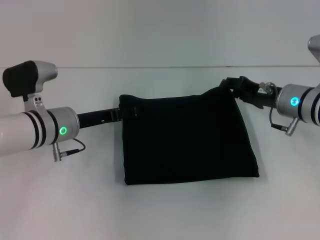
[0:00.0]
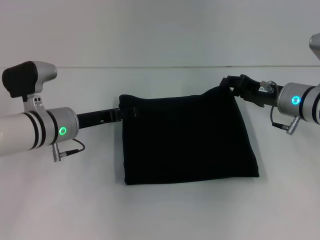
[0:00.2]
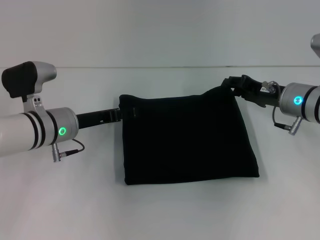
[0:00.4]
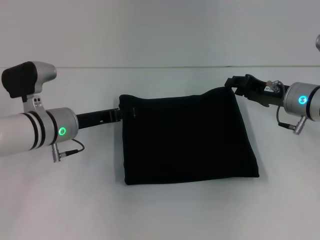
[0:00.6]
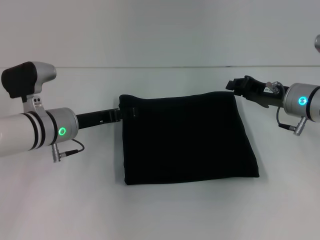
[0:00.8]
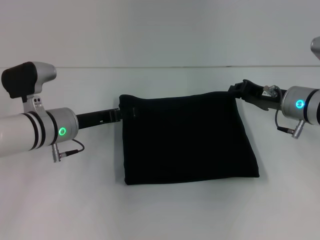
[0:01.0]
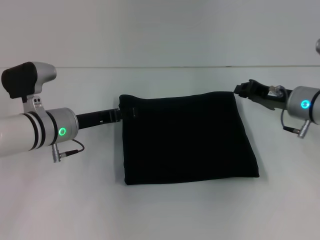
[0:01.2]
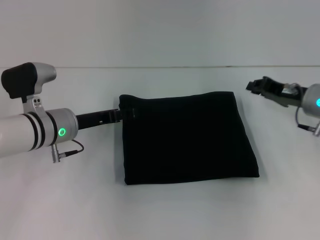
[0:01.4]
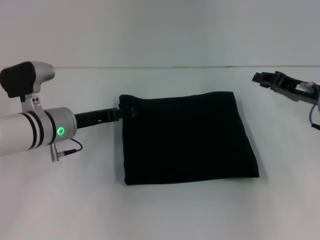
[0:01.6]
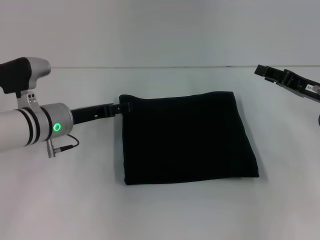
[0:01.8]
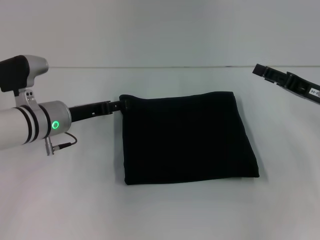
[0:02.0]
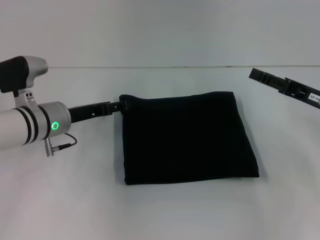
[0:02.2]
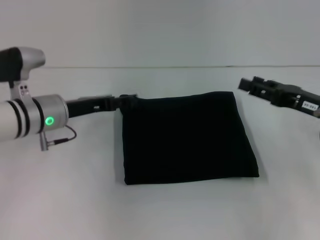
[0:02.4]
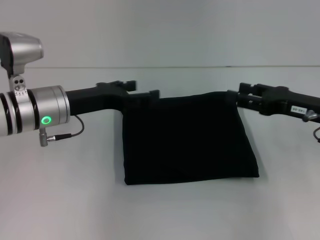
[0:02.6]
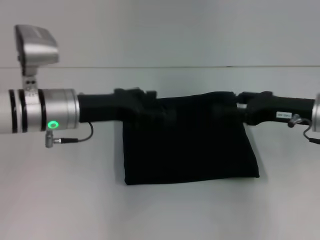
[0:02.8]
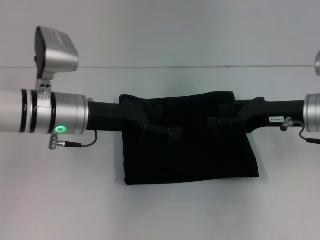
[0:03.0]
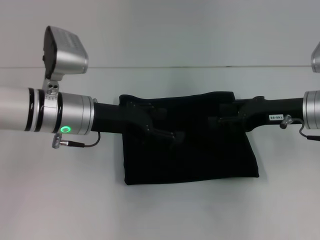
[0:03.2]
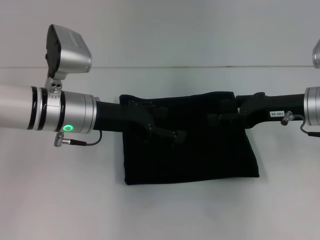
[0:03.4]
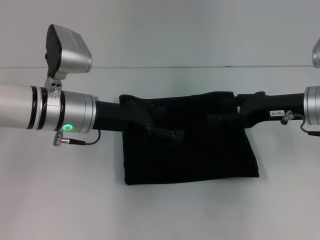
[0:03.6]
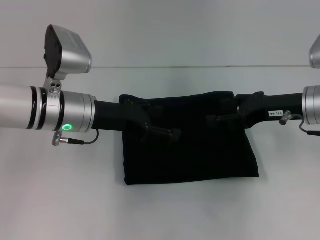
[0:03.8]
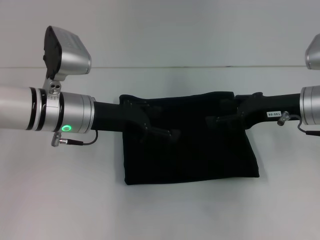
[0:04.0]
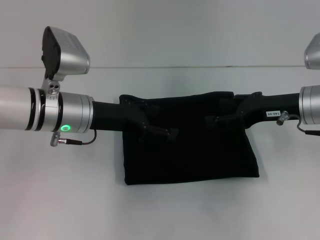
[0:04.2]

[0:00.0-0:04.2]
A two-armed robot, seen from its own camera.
0.0 to 1.4 s: The right gripper closes.
1.4 to 2.8 s: The left gripper moves upward, roughly 5 cm; the right gripper changes place by about 5 cm, and opens.
2.8 to 4.2 s: There are only small adjustments of the grippers.

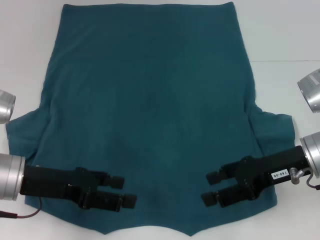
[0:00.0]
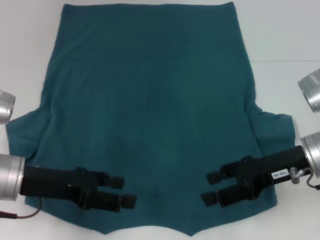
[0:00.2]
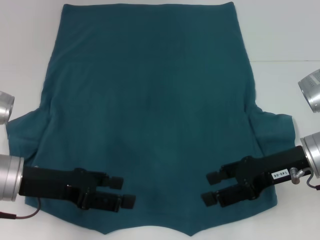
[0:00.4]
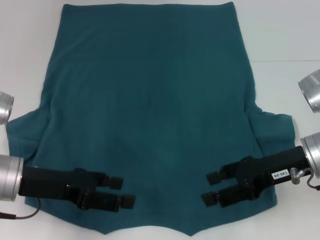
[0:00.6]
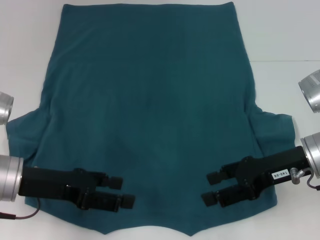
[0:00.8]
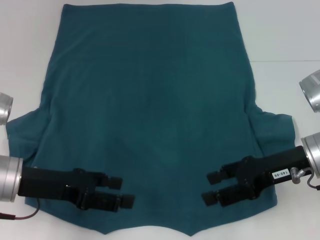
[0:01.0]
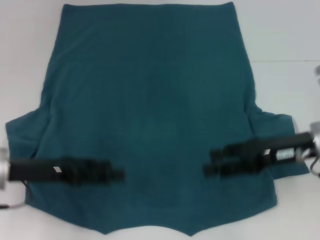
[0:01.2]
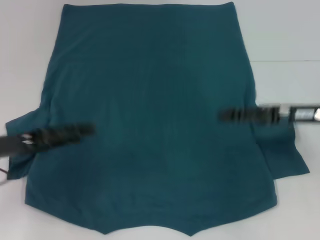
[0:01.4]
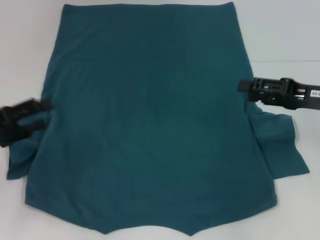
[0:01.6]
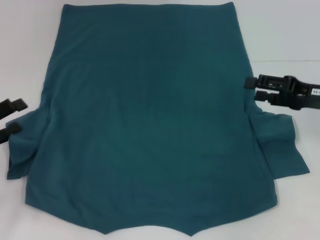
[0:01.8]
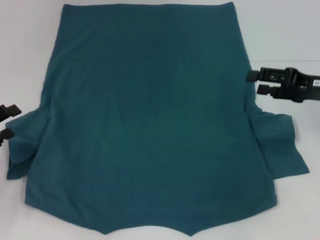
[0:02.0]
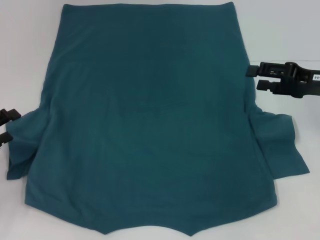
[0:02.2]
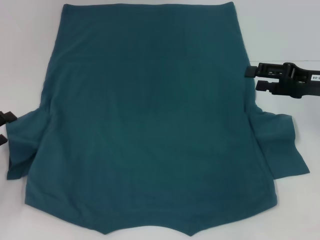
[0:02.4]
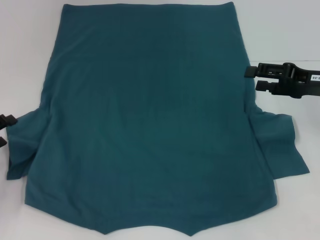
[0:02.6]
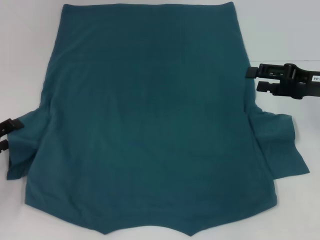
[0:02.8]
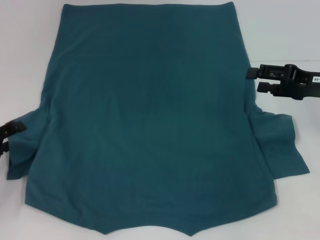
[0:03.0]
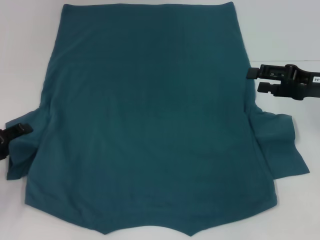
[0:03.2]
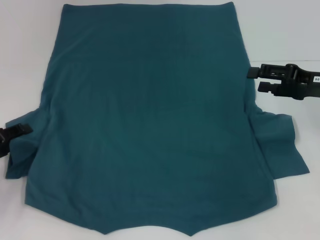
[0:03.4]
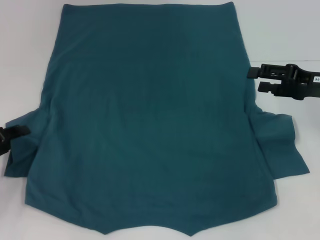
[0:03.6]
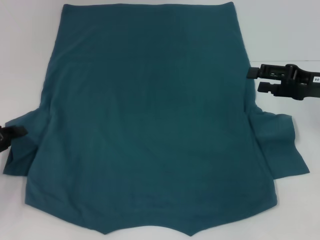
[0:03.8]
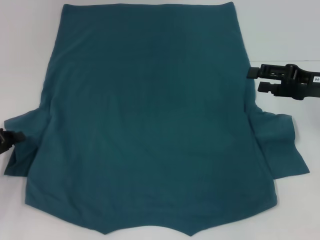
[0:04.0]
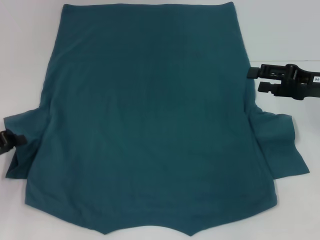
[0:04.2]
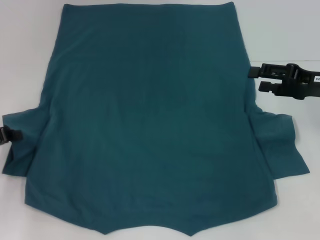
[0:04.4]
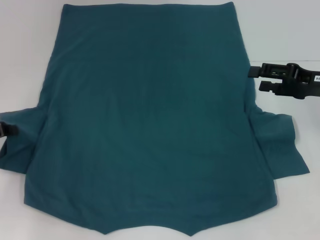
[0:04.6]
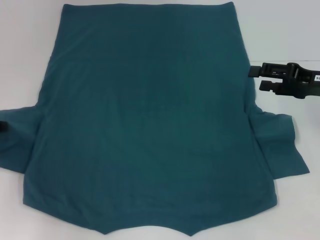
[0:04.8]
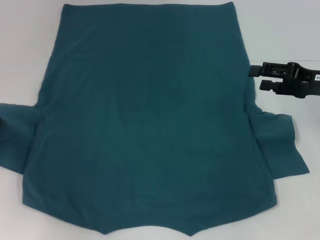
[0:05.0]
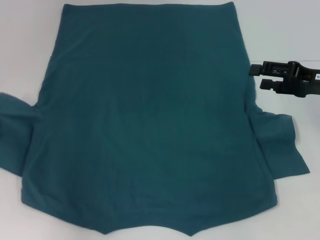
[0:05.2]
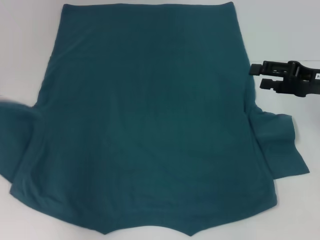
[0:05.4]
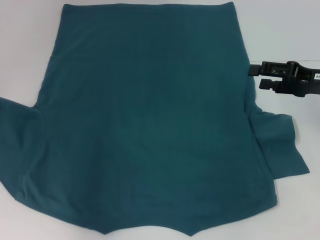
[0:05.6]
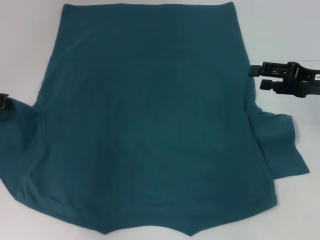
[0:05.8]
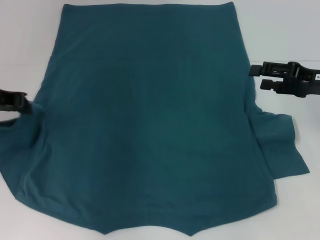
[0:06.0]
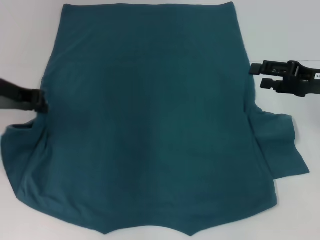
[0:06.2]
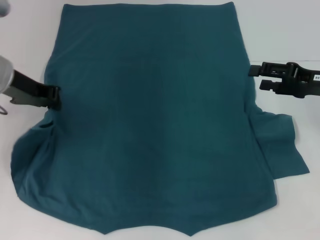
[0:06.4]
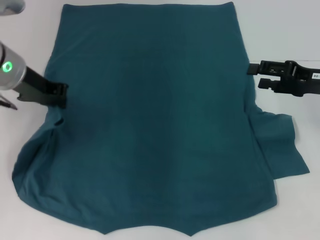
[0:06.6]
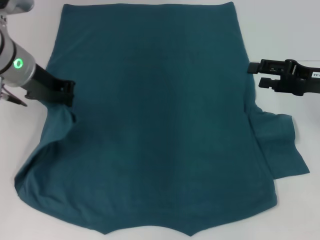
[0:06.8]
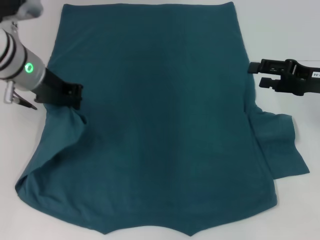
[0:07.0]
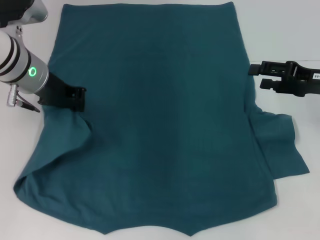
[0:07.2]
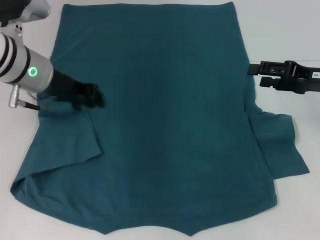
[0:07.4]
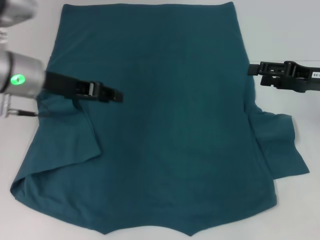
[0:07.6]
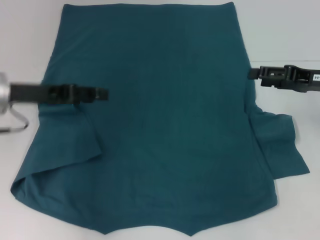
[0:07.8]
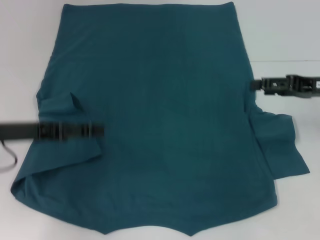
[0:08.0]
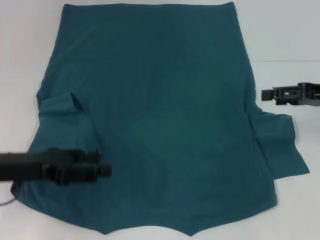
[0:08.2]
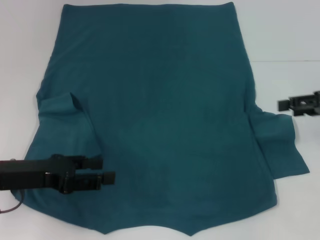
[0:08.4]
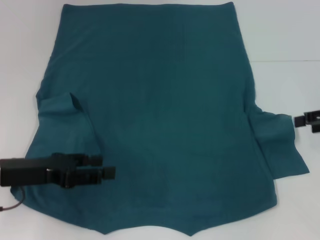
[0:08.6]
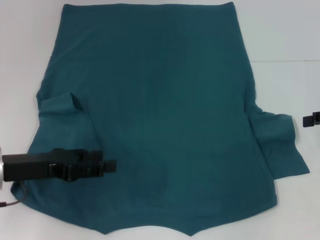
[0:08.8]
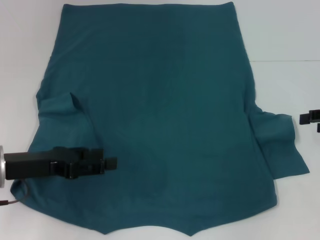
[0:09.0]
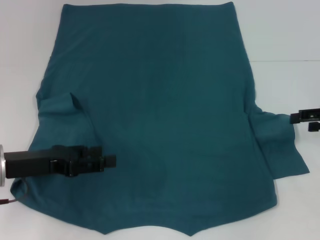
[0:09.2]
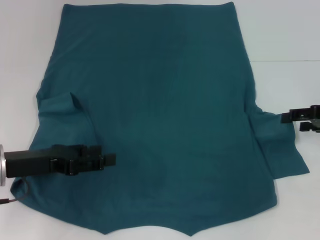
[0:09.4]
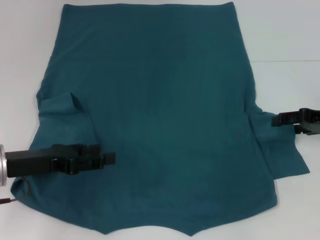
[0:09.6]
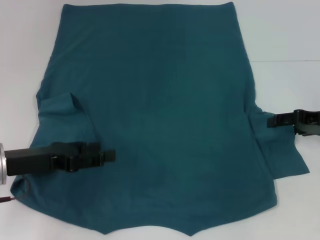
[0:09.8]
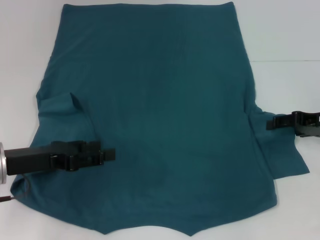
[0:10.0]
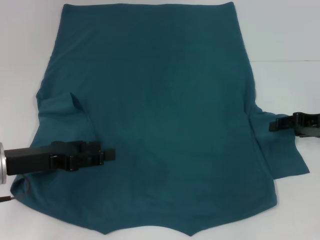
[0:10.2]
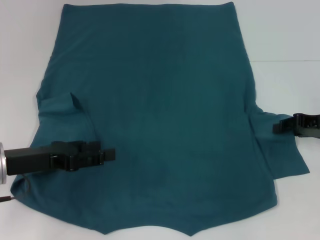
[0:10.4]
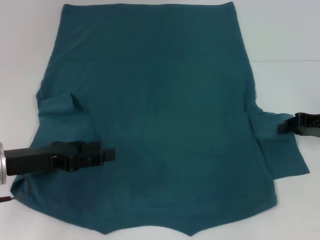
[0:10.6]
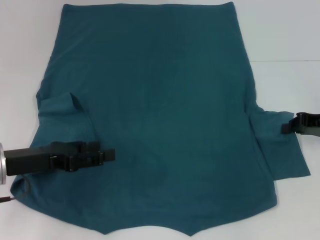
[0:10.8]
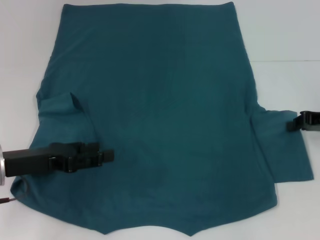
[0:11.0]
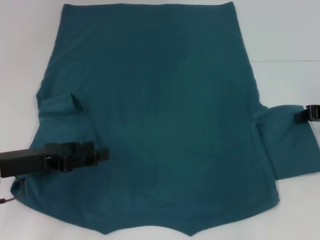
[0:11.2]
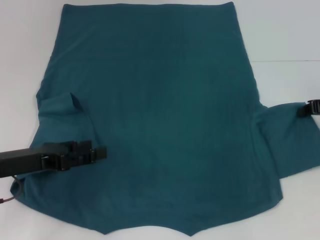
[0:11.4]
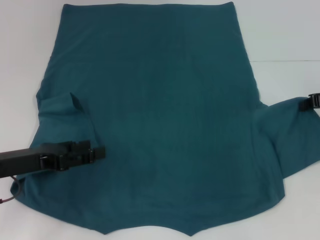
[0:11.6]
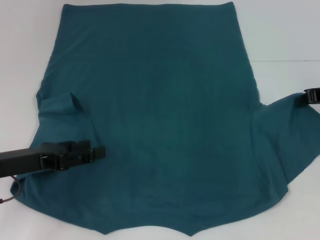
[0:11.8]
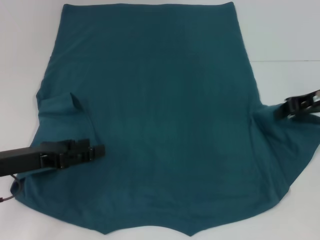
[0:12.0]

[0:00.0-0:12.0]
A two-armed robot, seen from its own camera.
Step, 0.0 to 7.4 s: Fold the bottom left sleeve with your left hand.
0.0 to 1.6 s: The right gripper heads to the right, covering some 5 cm. The left gripper goes about 10 cm to the left.
1.6 to 3.0 s: The left gripper travels downward by approximately 5 cm.
3.0 to 4.4 s: The left gripper closes.
4.4 to 6.0 s: The left gripper heads upward, forward and to the right, covering roughly 15 cm.
6.0 to 7.6 s: The left gripper shifts approximately 5 cm to the right.
7.6 to 9.0 s: The right gripper moves to the right, roughly 5 cm. The left gripper is displaced backward and downward by about 15 cm, and opens its fingers.
9.0 to 10.4 s: The right gripper moves approximately 5 cm.
10.4 to 12.0 s: The right gripper heads upward, covering about 5 cm, and closes up.

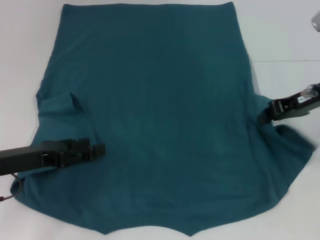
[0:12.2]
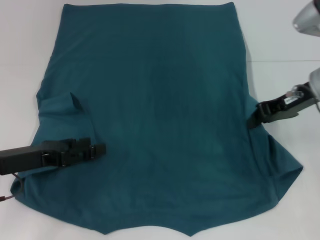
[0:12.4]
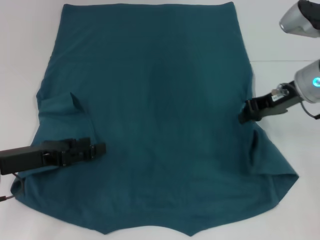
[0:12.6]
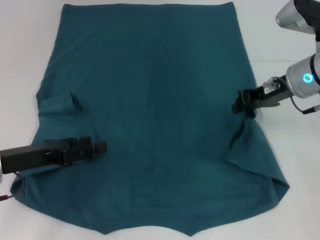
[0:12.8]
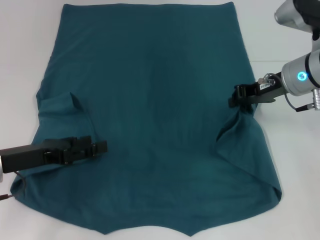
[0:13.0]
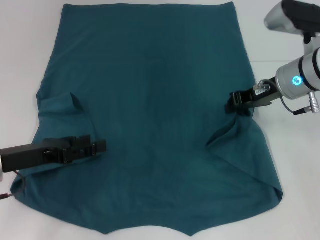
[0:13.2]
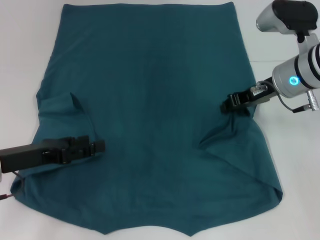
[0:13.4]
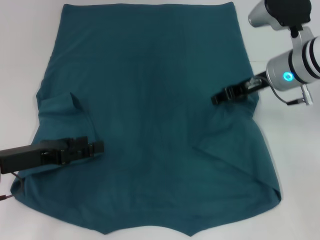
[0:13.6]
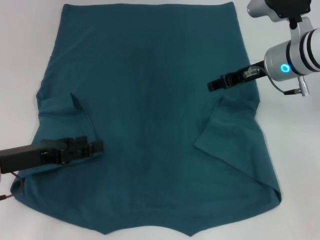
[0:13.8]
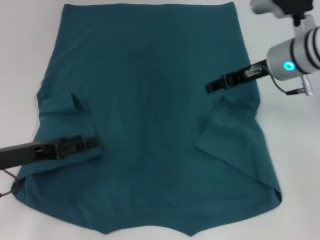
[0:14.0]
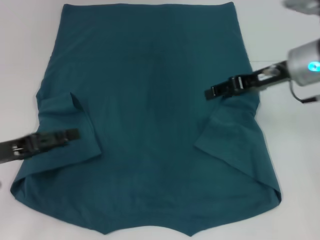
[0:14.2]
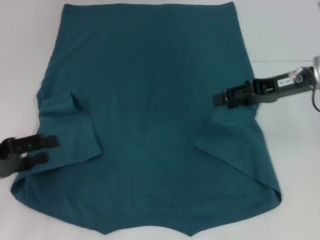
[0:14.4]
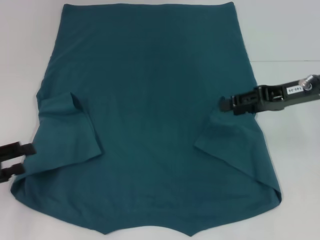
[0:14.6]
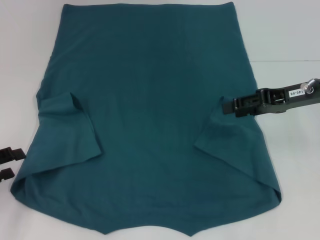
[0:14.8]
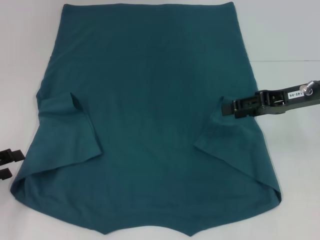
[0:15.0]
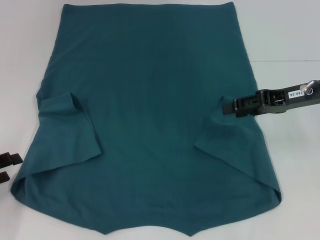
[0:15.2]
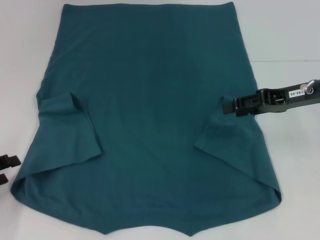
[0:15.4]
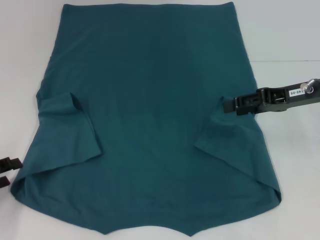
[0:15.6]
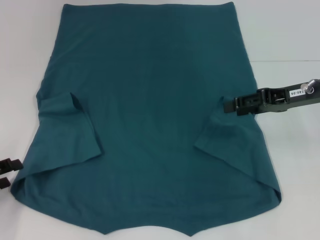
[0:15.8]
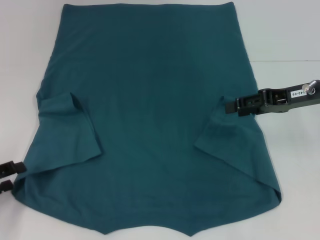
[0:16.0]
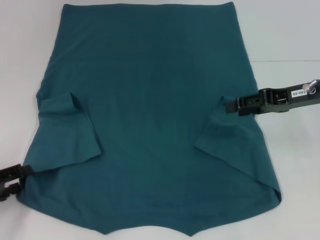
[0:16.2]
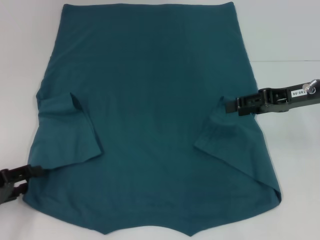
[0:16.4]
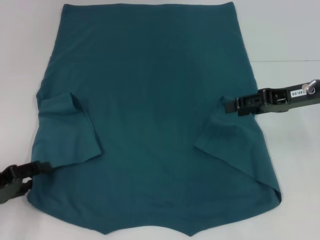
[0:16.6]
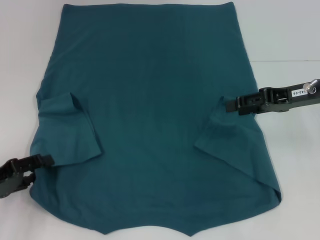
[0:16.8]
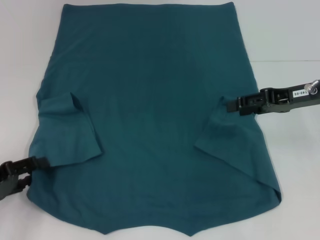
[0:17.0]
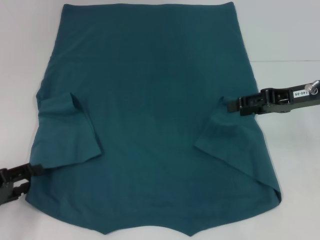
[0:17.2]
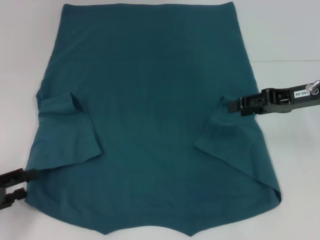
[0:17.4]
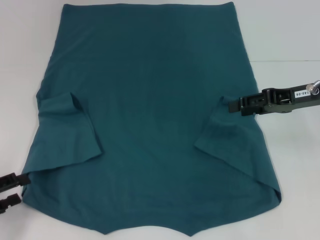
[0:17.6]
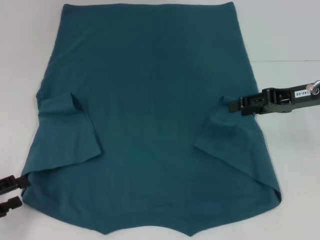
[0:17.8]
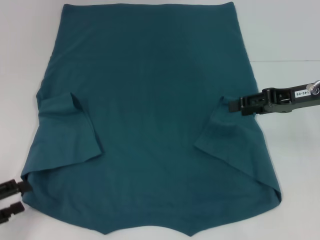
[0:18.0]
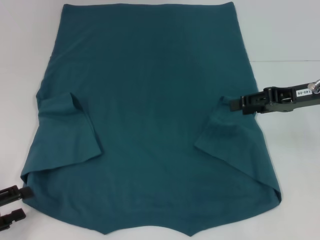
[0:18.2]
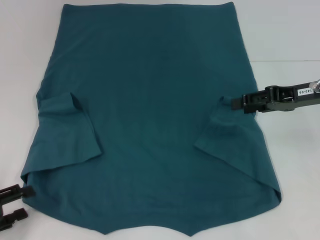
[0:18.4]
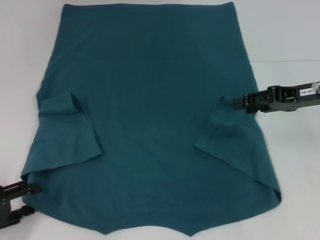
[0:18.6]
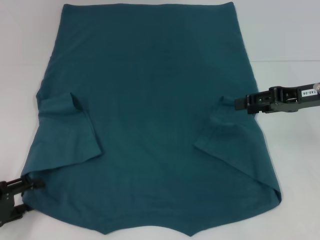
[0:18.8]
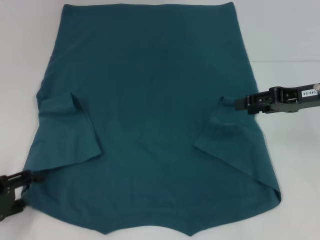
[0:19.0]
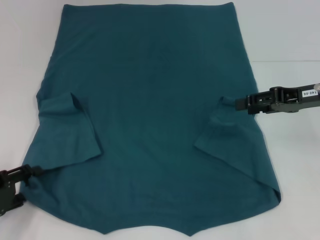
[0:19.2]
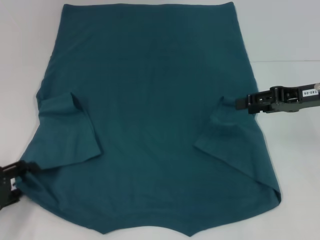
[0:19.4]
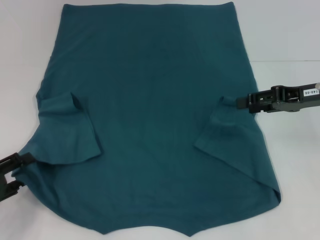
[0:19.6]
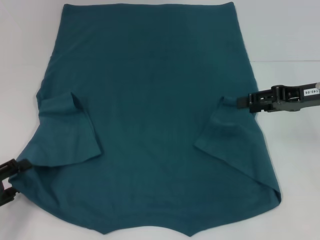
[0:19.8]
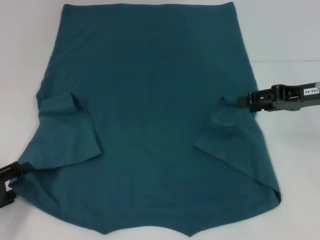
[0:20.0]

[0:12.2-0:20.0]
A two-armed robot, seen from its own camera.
12.2 to 13.8 s: The right gripper travels to the left by roughly 10 cm, and opens its fingers.
13.8 to 15.4 s: The left gripper travels to the left by about 10 cm; the right gripper shifts approximately 10 cm to the right and backward.
15.4 to 16.8 s: The grippers move only a little.
16.8 to 18.4 s: The left gripper shifts some 5 cm backward.
18.4 to 20.0 s: The grippers move only a little.
